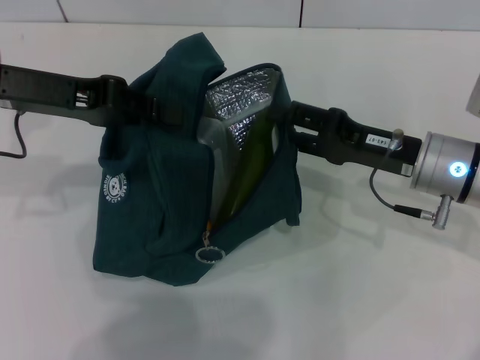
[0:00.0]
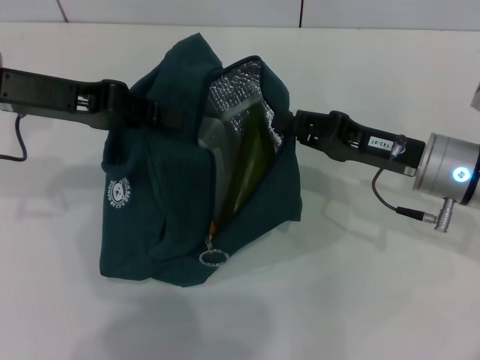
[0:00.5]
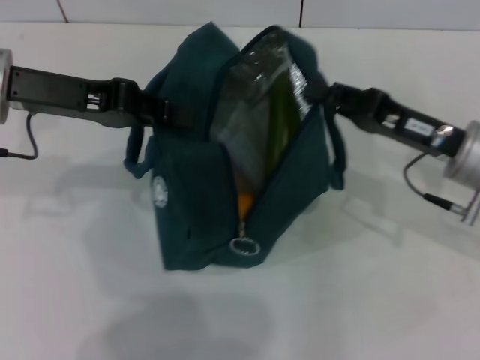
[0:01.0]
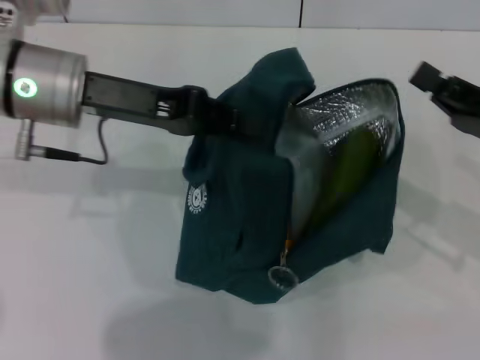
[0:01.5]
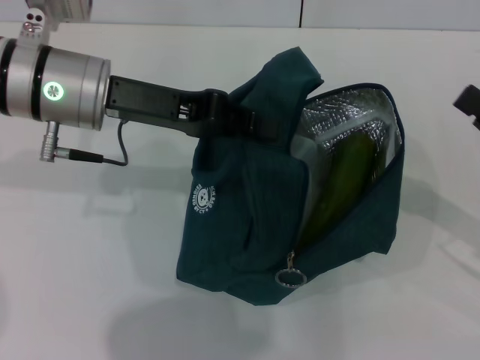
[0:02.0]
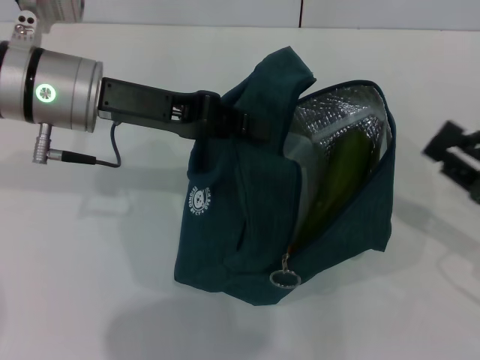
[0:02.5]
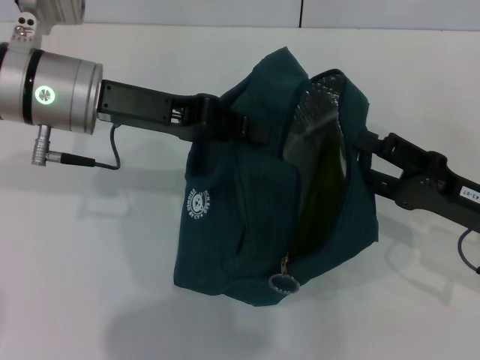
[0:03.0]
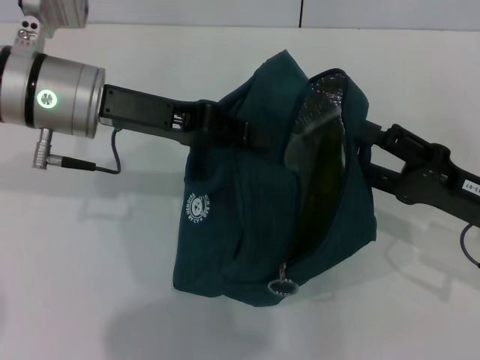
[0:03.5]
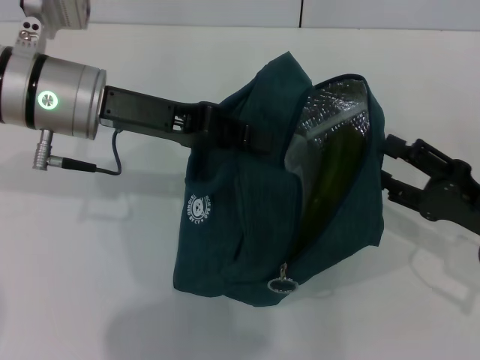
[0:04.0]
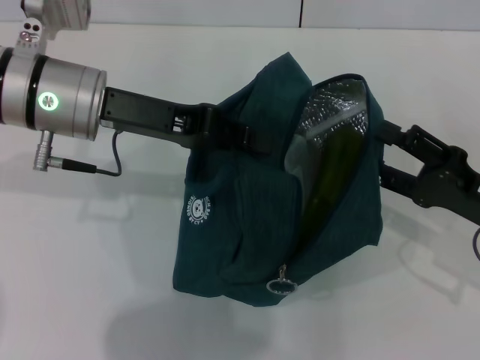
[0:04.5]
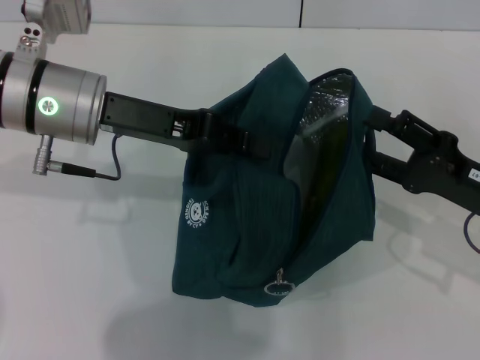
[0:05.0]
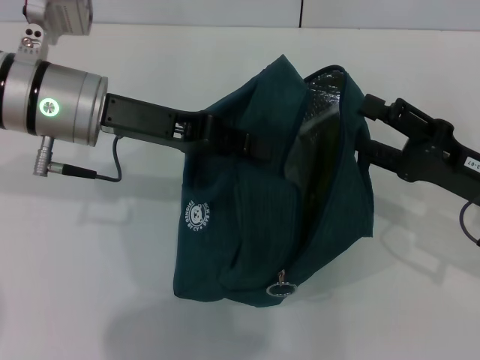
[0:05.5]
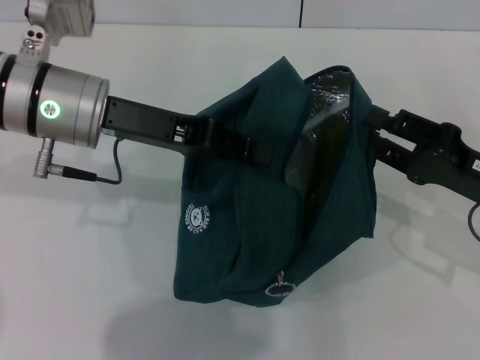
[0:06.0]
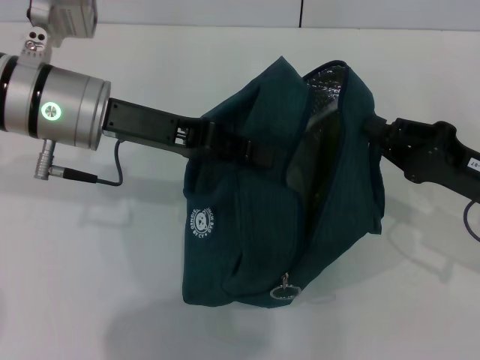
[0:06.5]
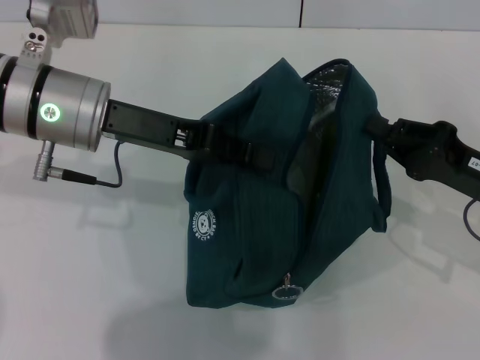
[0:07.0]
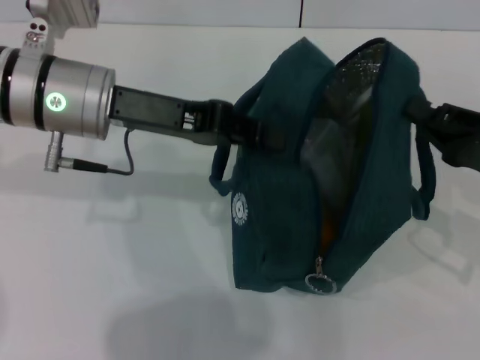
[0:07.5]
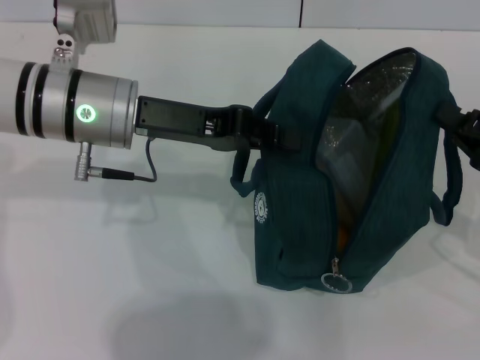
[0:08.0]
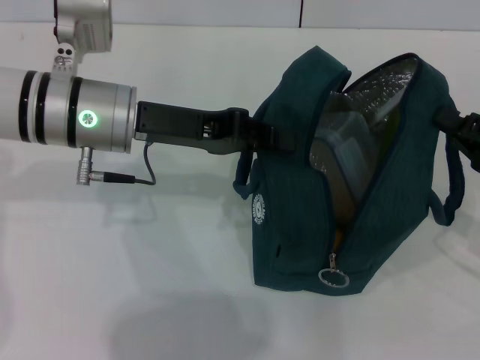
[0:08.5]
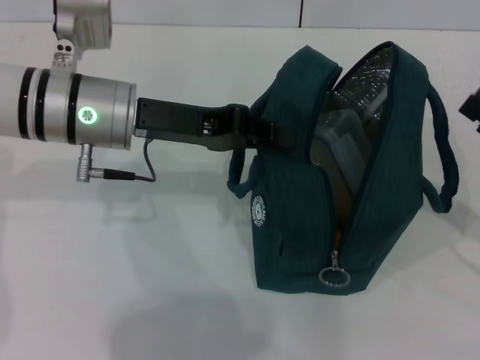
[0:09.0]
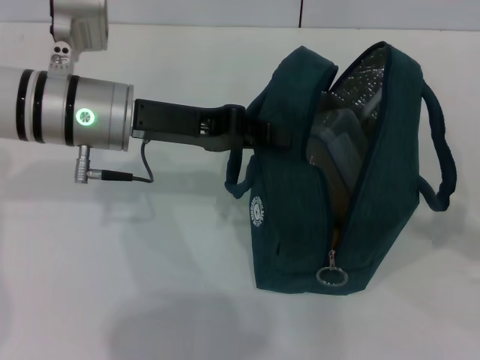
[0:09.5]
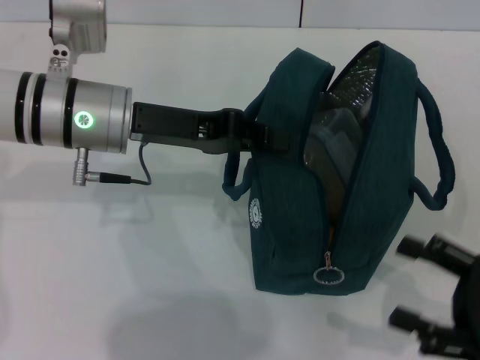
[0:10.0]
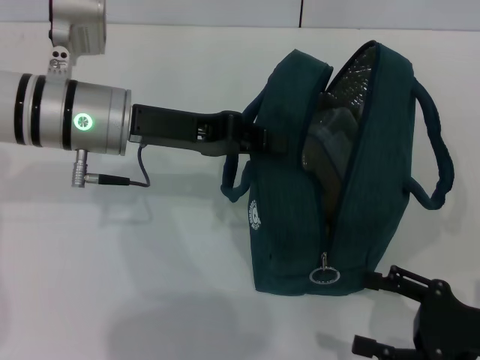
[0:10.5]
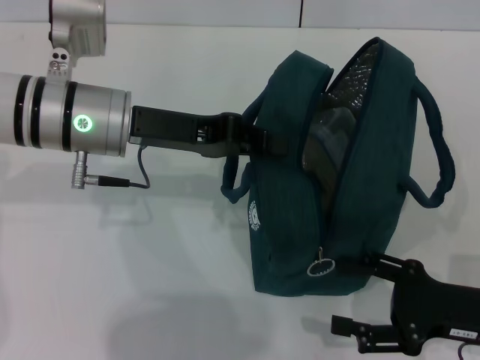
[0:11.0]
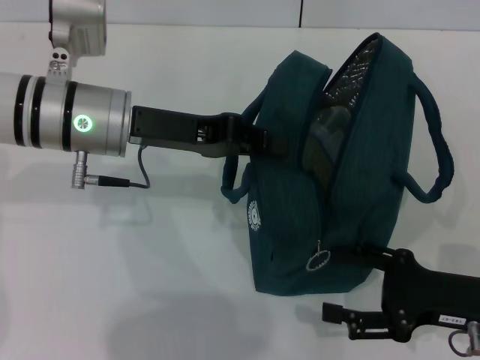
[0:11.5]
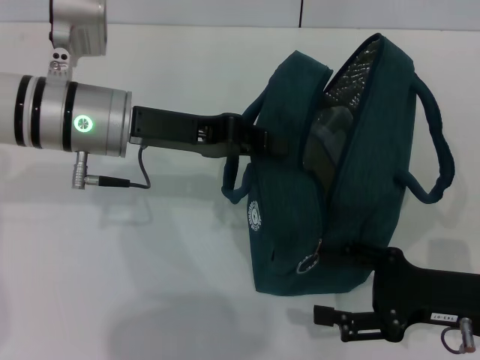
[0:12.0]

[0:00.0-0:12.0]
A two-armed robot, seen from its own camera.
Step, 0.0 to 9.0 s: Hold the lunch bag with your right hand.
0.0 to 2.0 s: The left gripper heads to the right, covering approximately 10 cm; the right gripper shifts roughly 15 cm to the right and backward, and closes its fingers.
2.0 to 4.0 s: The right gripper changes place by about 5 cm, and opens up.
4.0 to 6.0 s: The grippers make only small movements.
6.0 to 8.0 s: The right gripper closes up.
8.0 to 10.0 s: The right gripper moves backward, approximately 10 cm, and opens its fingers.
10.0 to 12.0 s: The right gripper shifts some 5 cm to the left and forward.

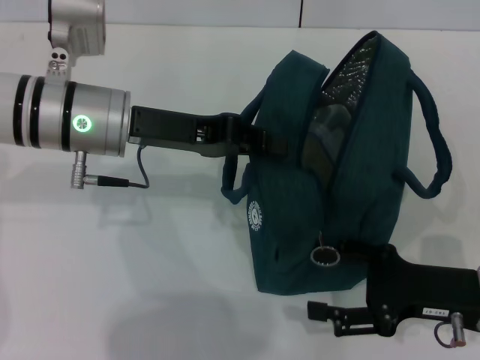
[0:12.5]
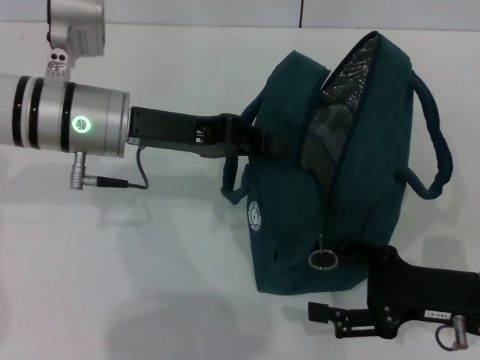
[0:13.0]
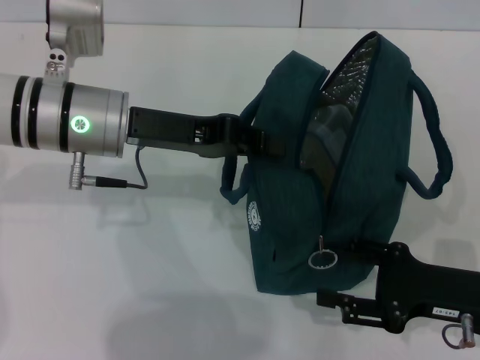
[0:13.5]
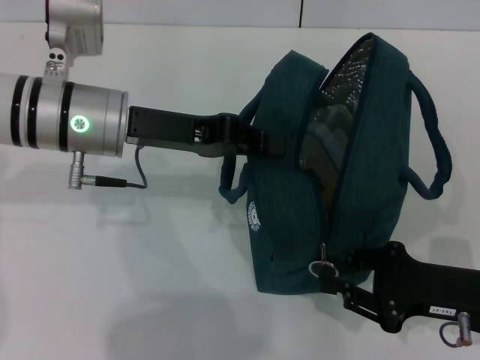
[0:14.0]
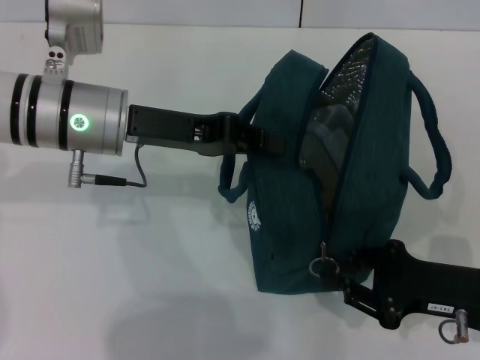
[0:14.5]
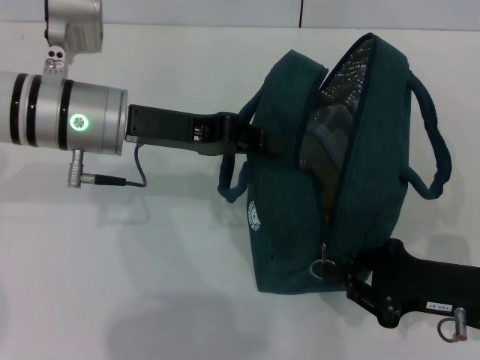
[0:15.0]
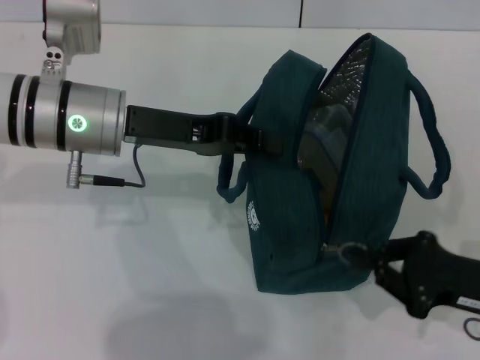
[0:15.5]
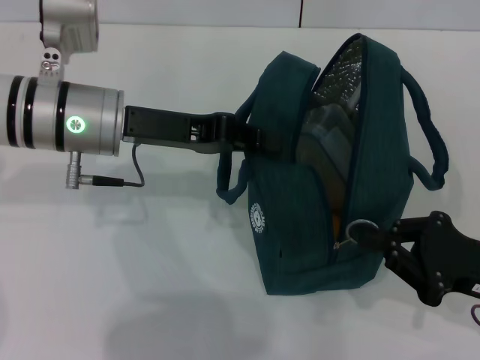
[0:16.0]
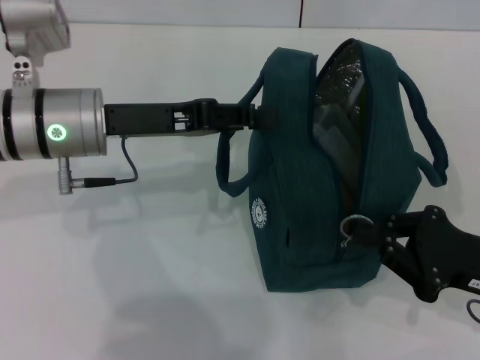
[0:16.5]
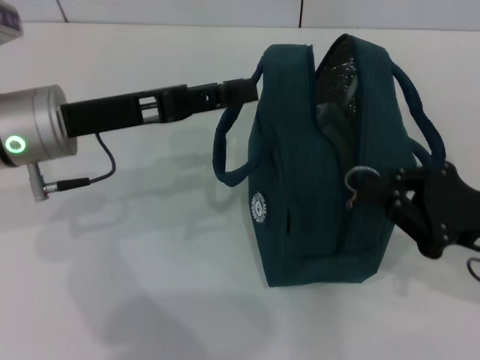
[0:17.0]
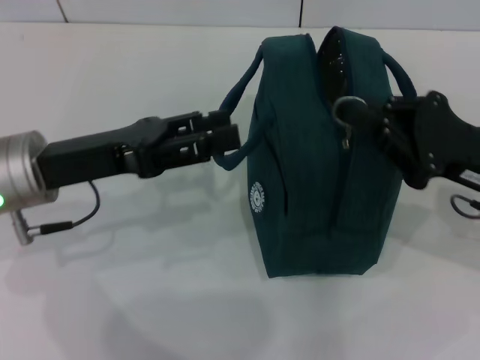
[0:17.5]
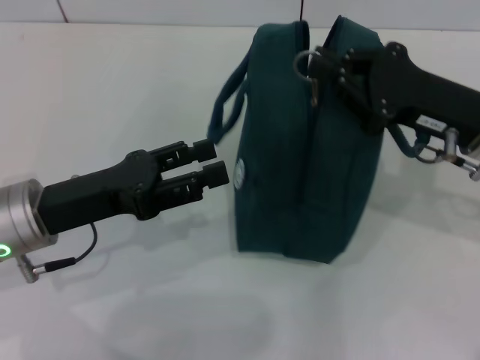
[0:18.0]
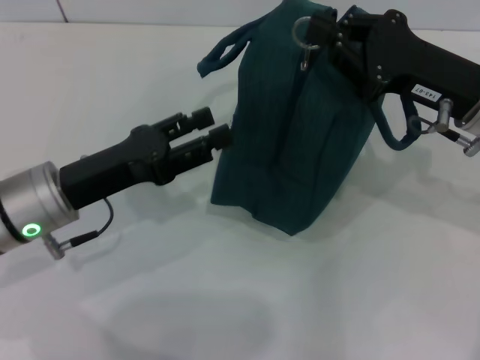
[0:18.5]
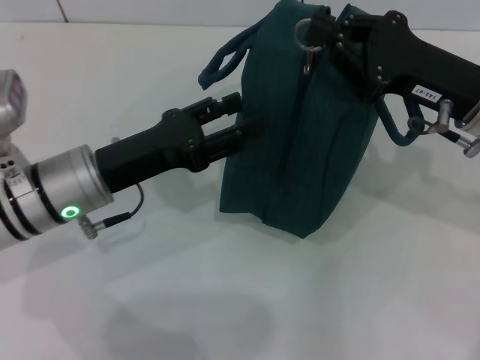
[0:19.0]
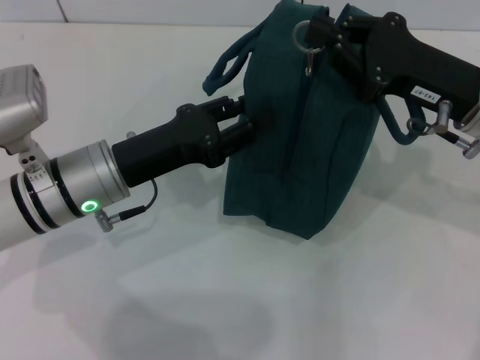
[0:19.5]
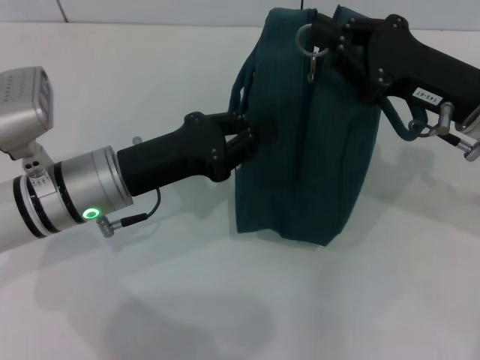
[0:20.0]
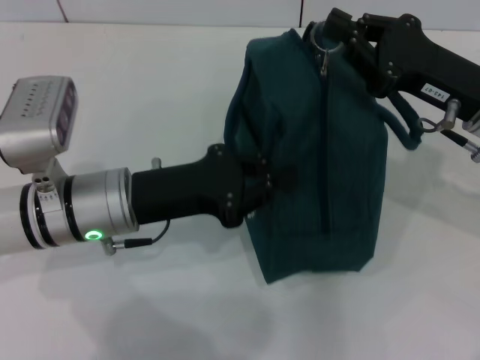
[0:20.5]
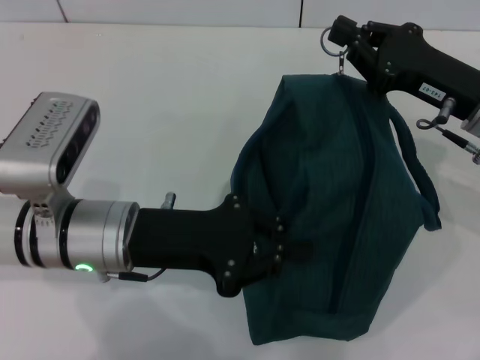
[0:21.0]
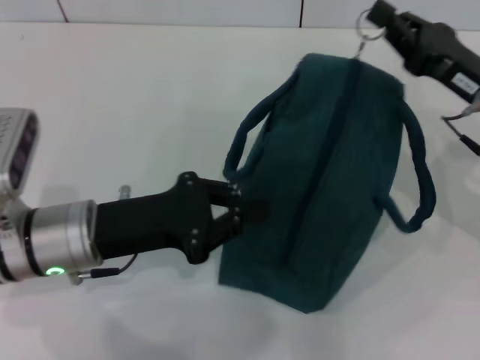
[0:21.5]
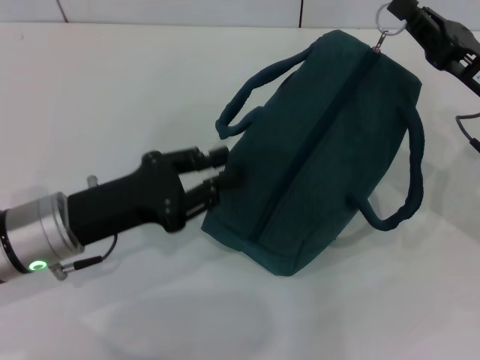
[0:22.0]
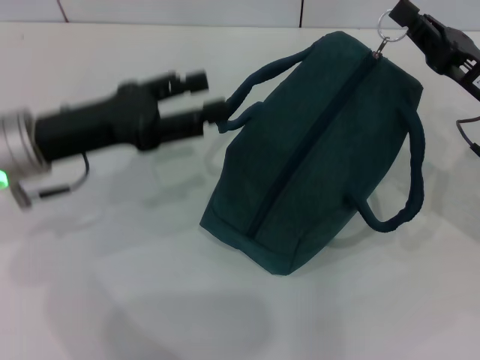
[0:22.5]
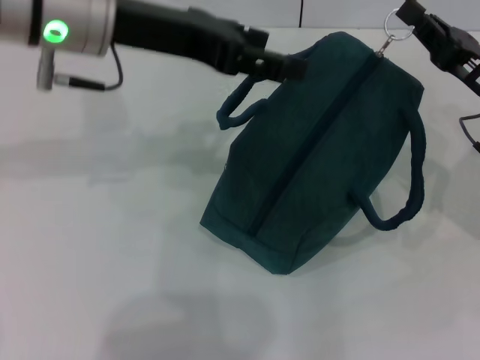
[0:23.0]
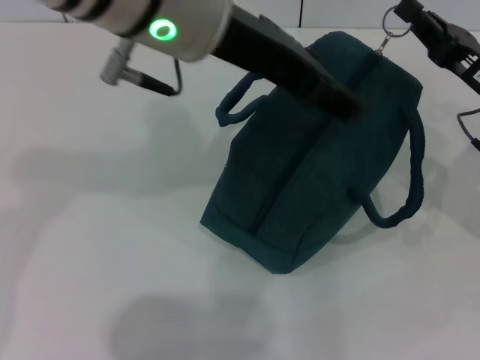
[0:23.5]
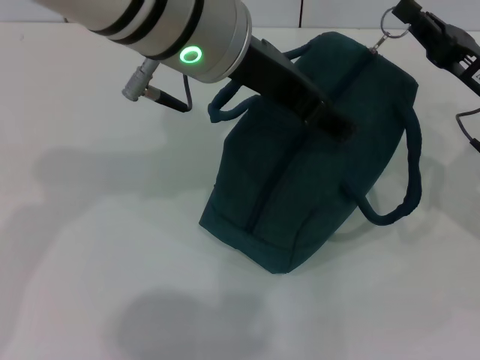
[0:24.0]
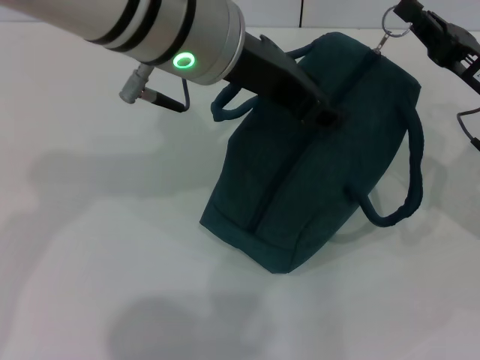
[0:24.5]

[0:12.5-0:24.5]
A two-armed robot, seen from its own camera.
Step, 12.5 to 17.0 s: Hold the lunch bag with your left hand.
12.5 to 14.5 s: The right gripper closes up.
16.5 to 18.5 s: The right gripper shifts roughly 15 cm forward, upward and to the left, while the left gripper shifts approximately 10 cm backward and downward, and opens its fingers.
18.5 to 20.5 s: The left gripper moves to the right, approximately 5 cm, and closes its fingers.
20.5 to 22.5 s: The left gripper moves to the left and upward, roughly 10 cm, and opens its fingers.
22.5 to 24.5 s: The left gripper is displaced to the right and upward by roughly 20 cm.

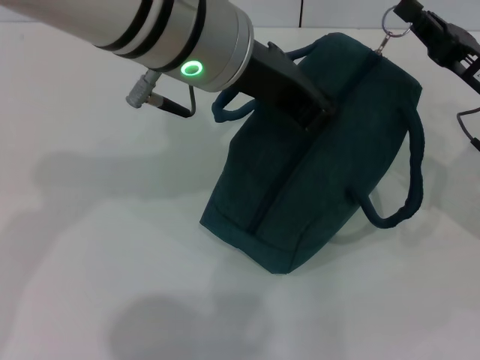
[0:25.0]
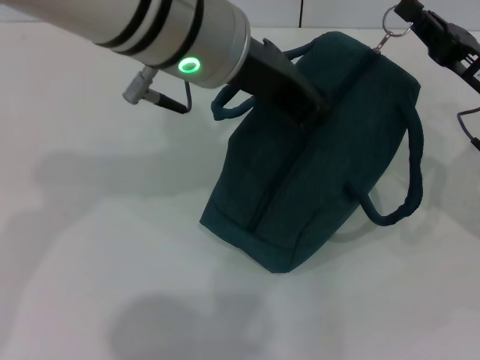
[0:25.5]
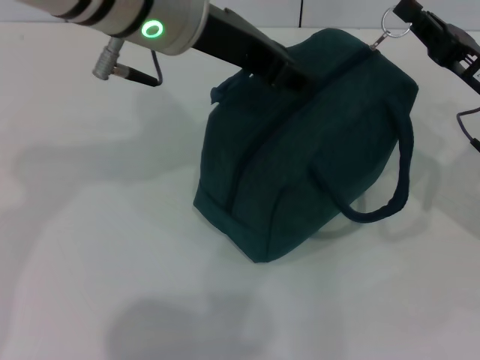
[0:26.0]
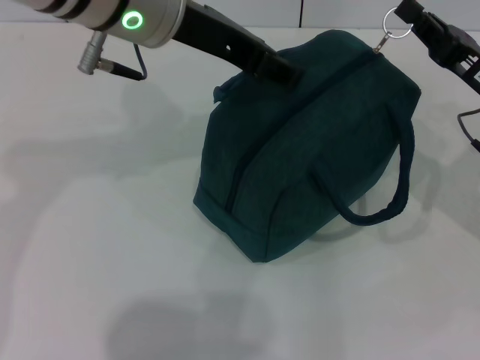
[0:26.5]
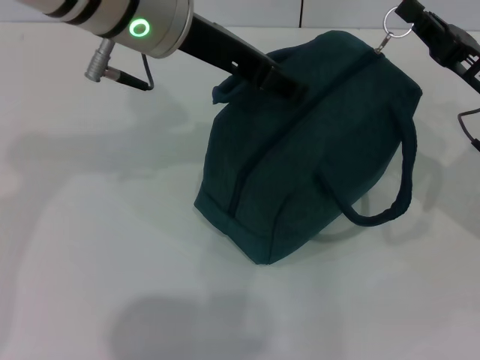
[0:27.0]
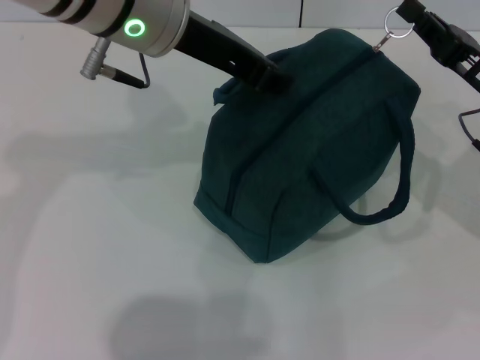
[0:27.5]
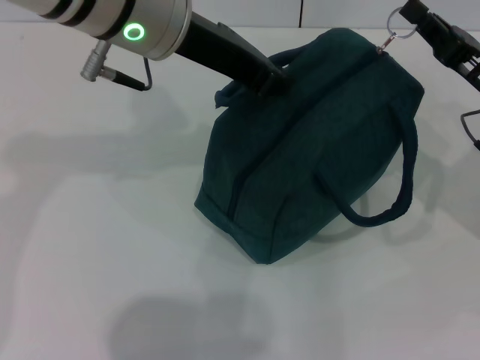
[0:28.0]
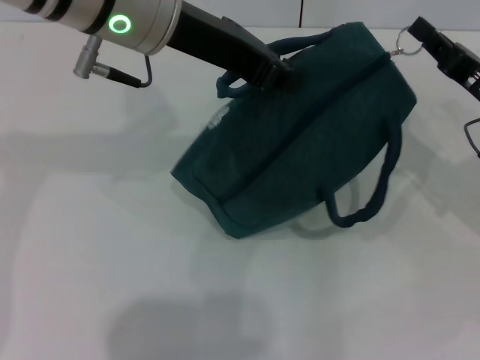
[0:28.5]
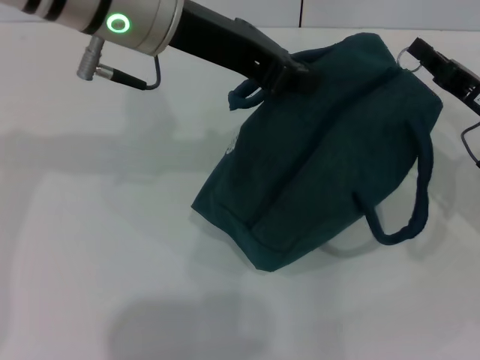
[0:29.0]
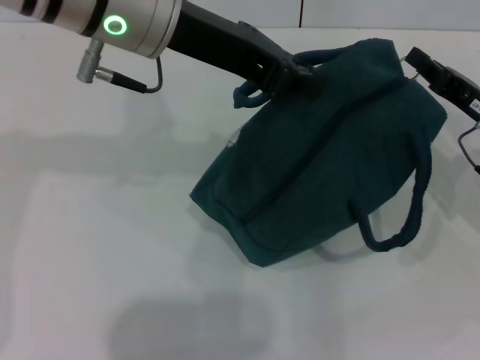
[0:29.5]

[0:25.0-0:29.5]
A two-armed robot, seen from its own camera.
25.0 to 27.0 s: The left gripper ends up some 5 cm from where it was, and opens.
27.0 to 29.5 s: The left gripper closes.
